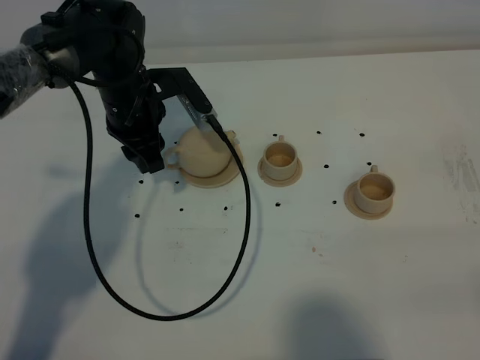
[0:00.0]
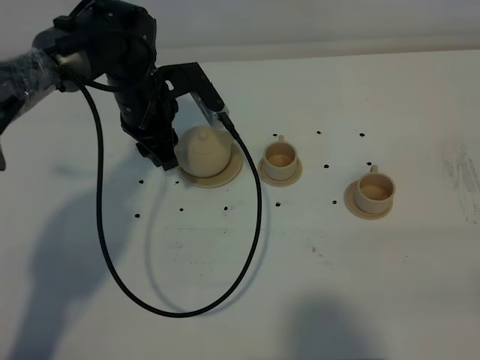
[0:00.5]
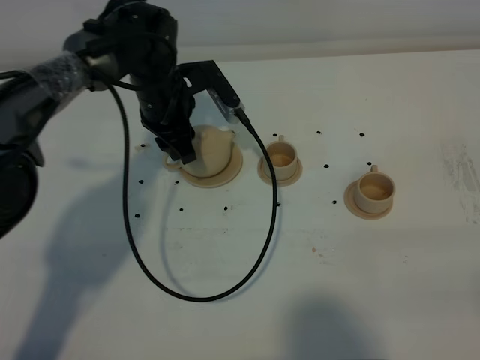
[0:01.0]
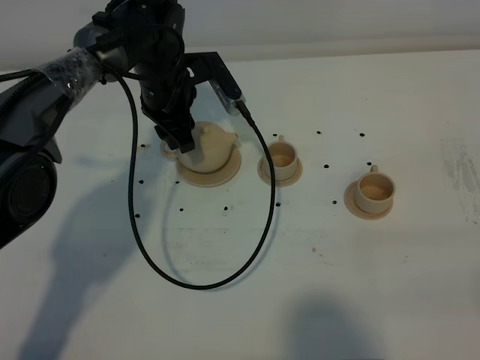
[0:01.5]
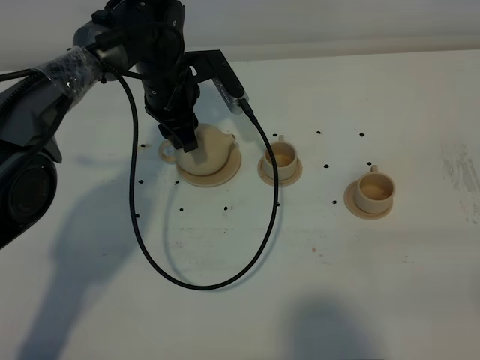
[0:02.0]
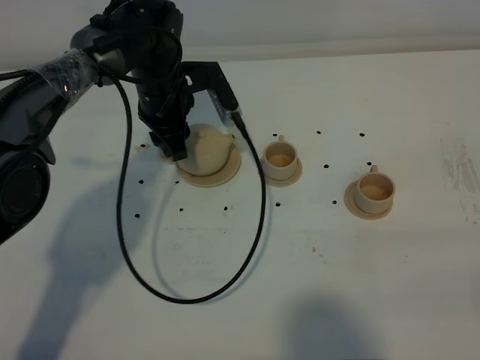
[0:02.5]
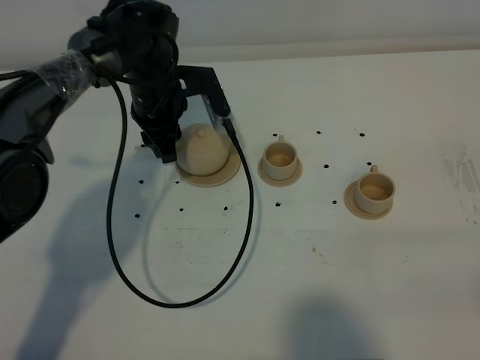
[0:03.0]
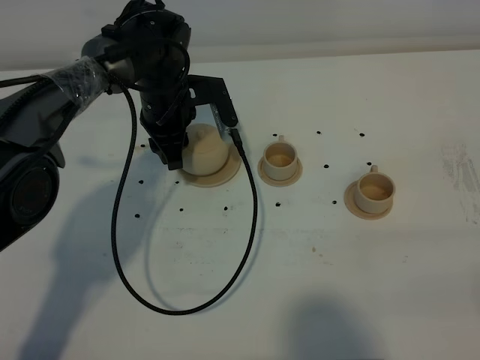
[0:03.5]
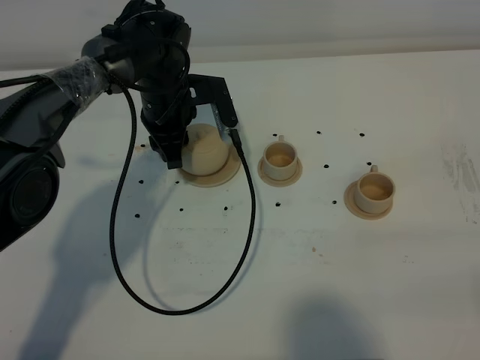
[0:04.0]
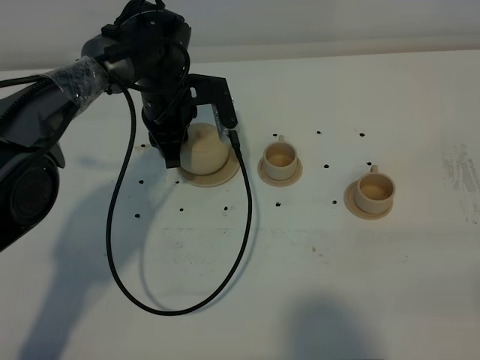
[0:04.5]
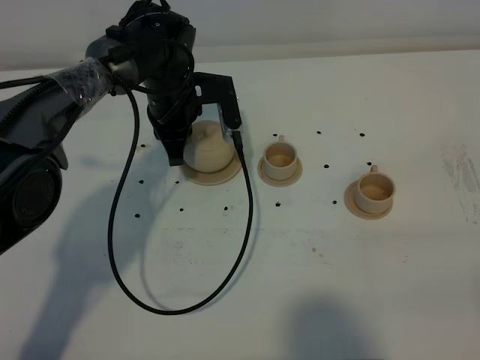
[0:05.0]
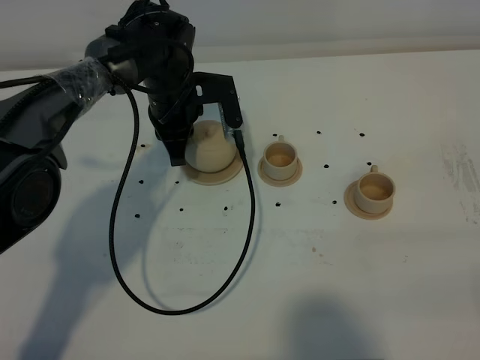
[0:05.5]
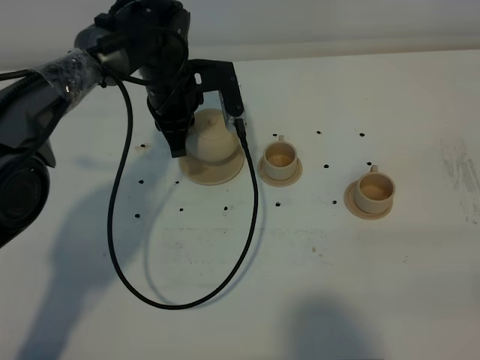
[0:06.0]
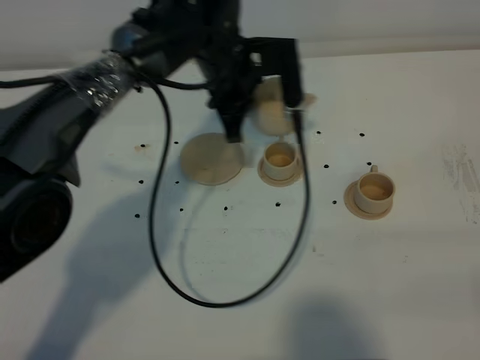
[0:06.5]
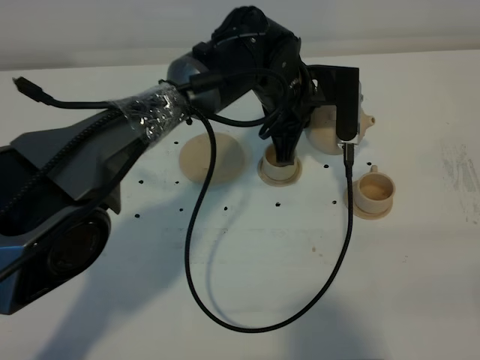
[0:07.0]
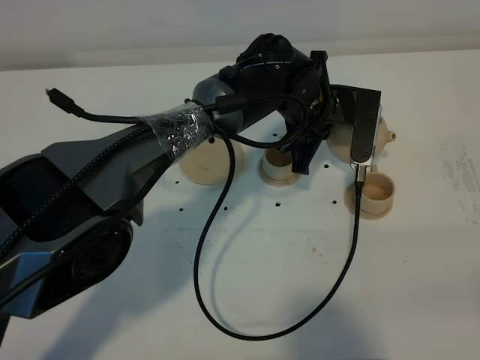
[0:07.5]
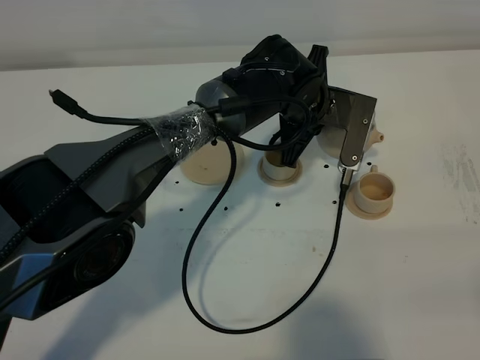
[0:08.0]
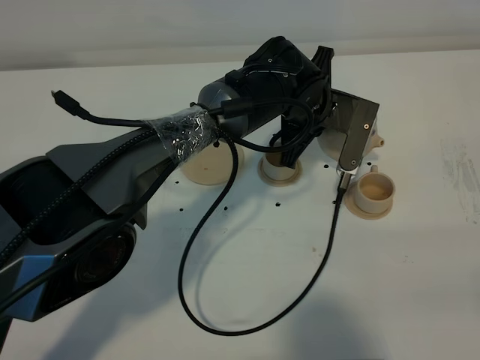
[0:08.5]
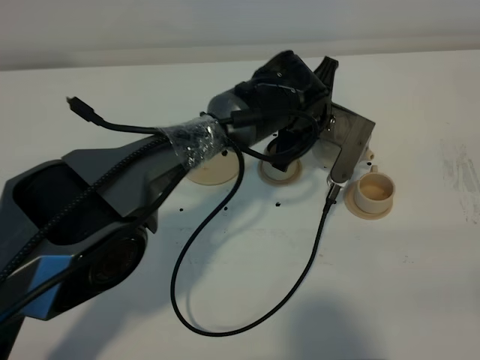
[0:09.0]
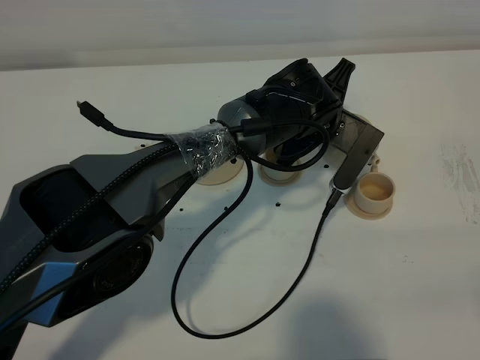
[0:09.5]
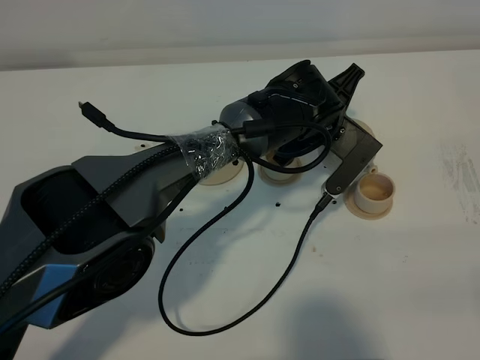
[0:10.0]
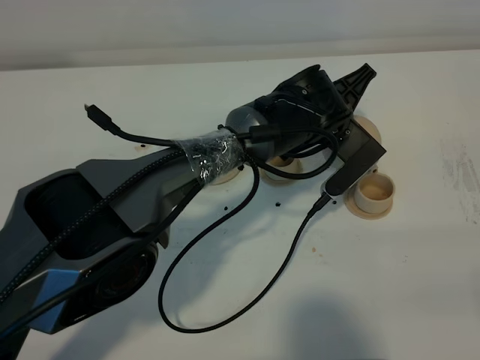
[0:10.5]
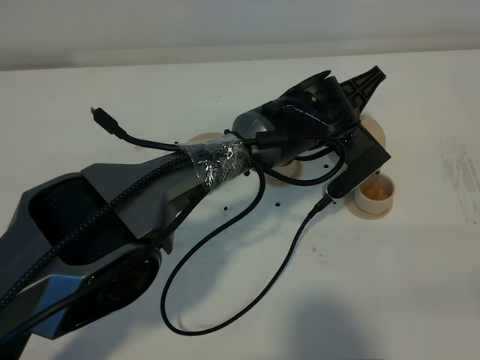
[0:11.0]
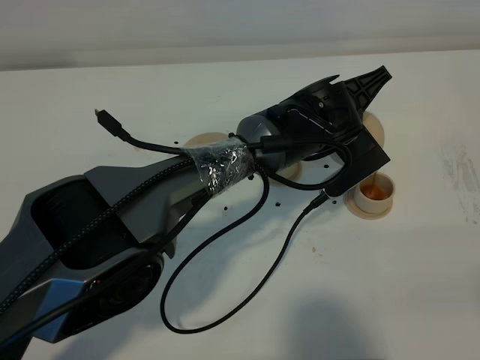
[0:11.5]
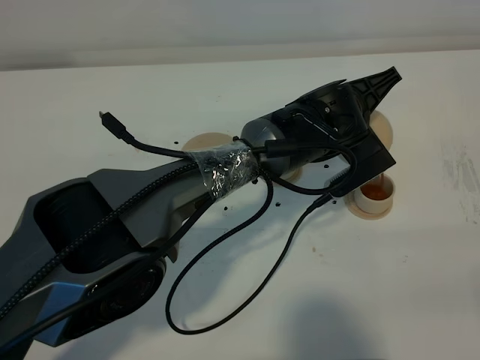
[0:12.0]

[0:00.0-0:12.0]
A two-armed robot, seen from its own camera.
Task of the whole recording: grasp the brown teapot and pour the tea into the two brown teacups one by one, put the brown teapot back in its original place.
Step, 0:00.0 to 0:05.5: Pick up the teapot with the left gripper.
0:00.0 to 0:02.0: The left gripper shifts by roughly 5 cm.
0:02.0 to 0:04.0: The grippers make only small movements.
0:04.0 to 0:06.0: The left gripper closes.
0:06.0 to 0:08.0: The left gripper shifts approximately 15 cm to the right.

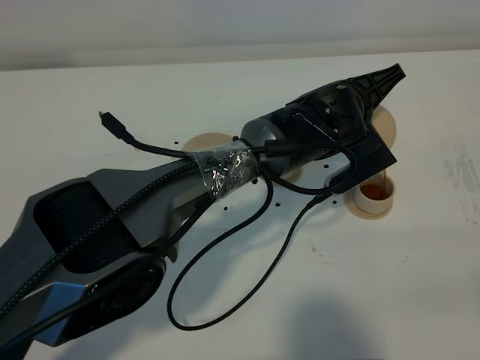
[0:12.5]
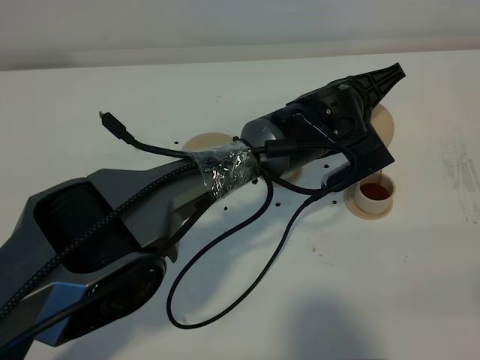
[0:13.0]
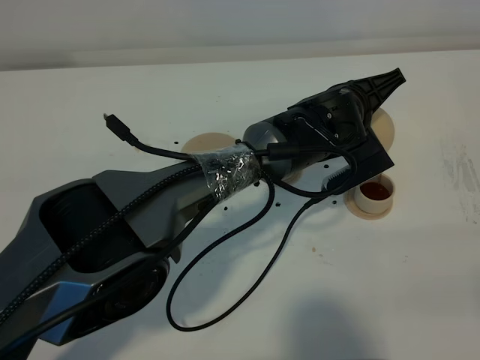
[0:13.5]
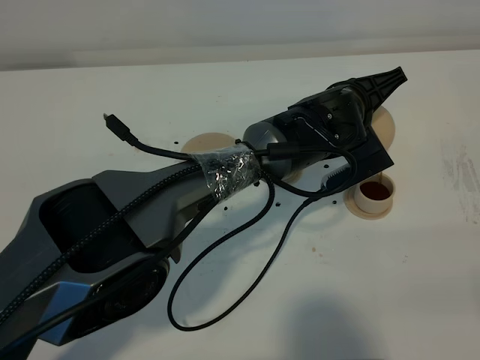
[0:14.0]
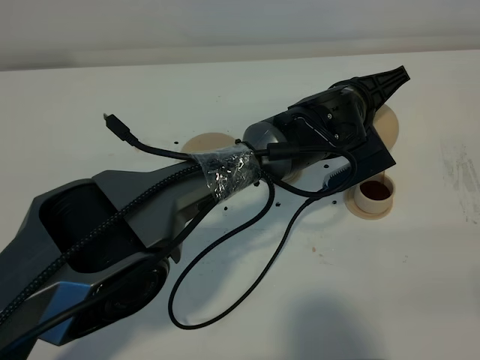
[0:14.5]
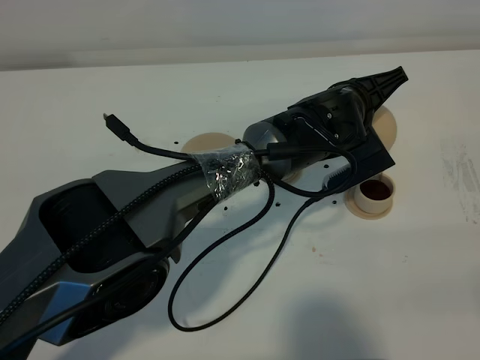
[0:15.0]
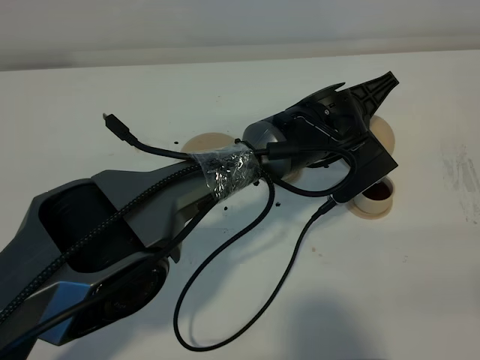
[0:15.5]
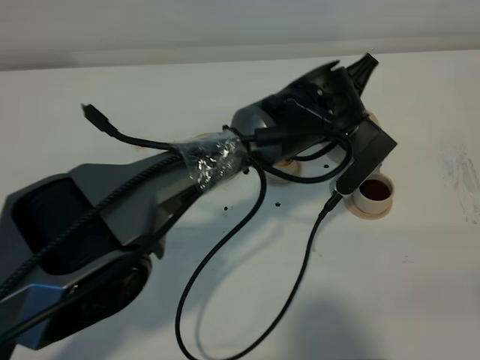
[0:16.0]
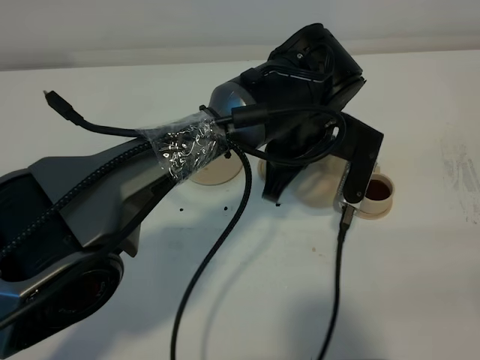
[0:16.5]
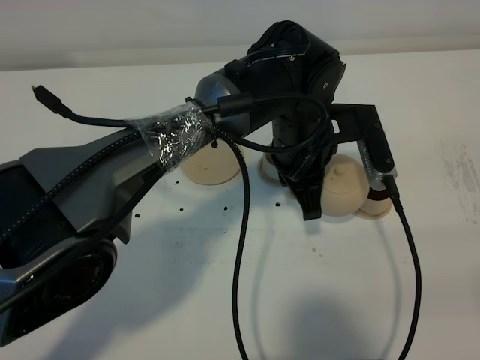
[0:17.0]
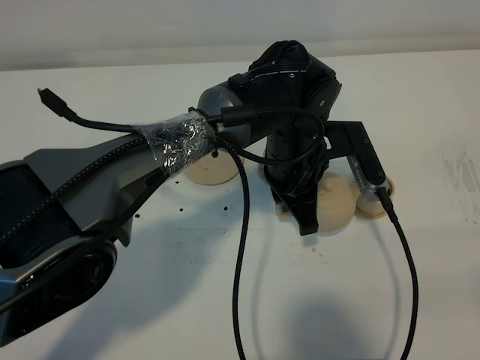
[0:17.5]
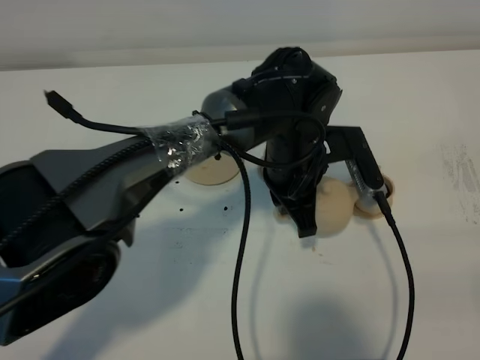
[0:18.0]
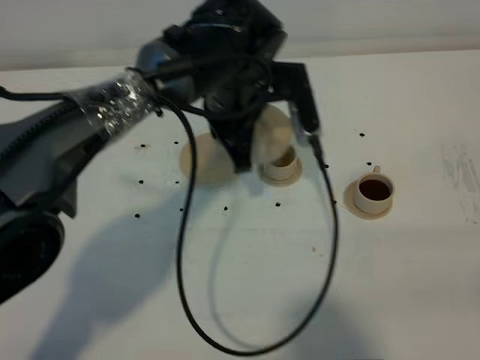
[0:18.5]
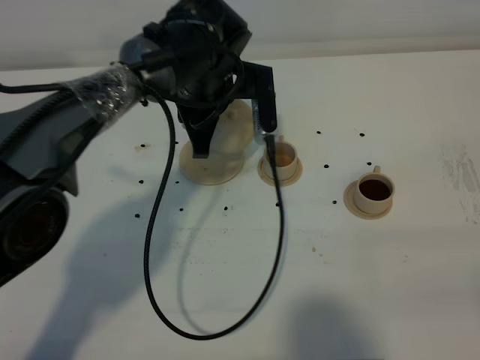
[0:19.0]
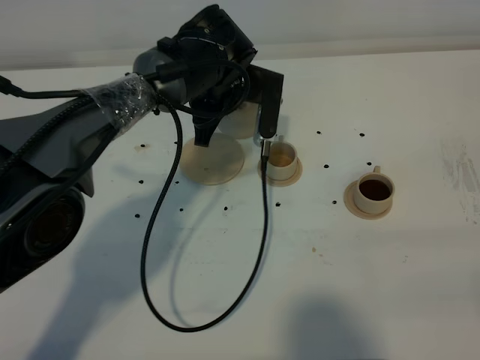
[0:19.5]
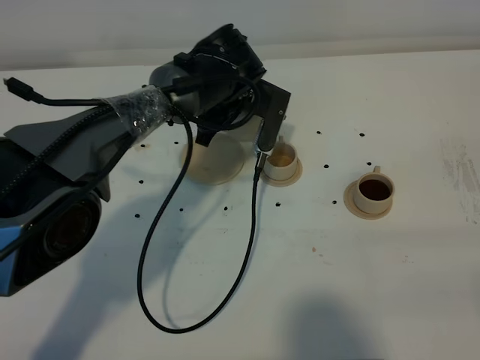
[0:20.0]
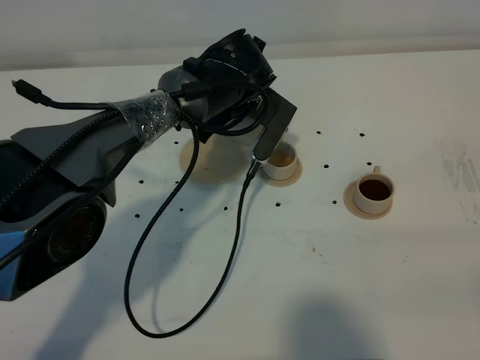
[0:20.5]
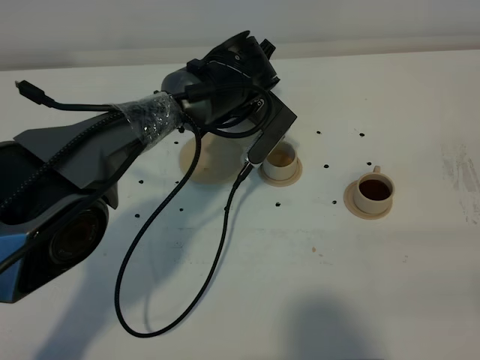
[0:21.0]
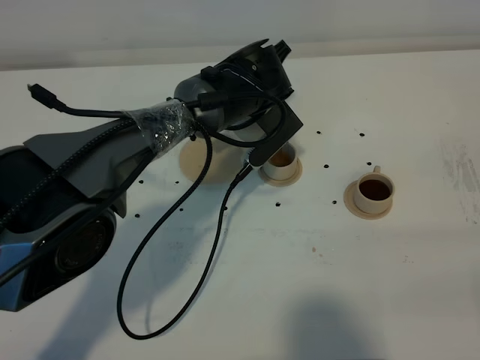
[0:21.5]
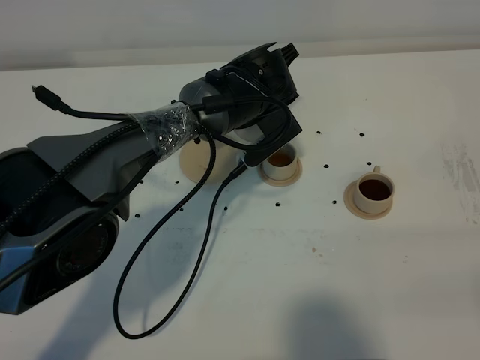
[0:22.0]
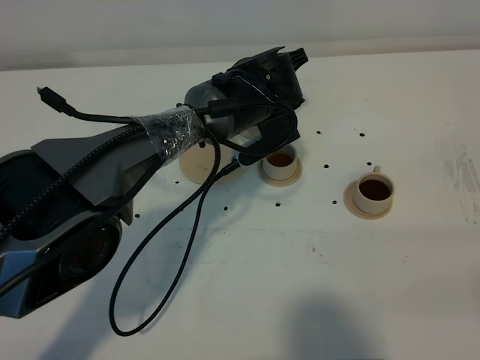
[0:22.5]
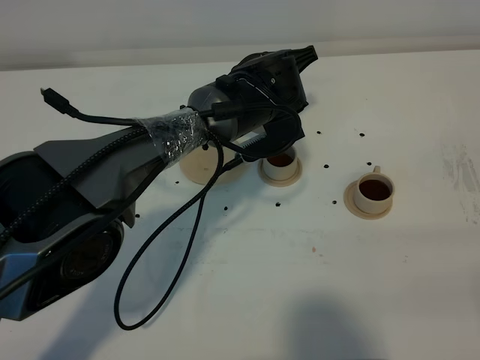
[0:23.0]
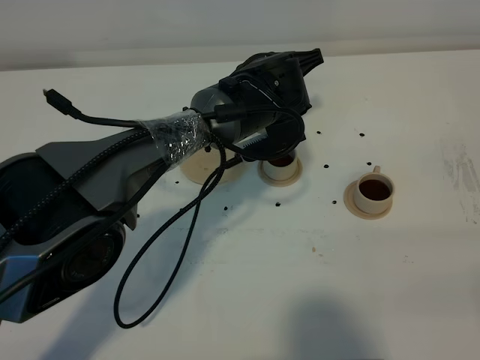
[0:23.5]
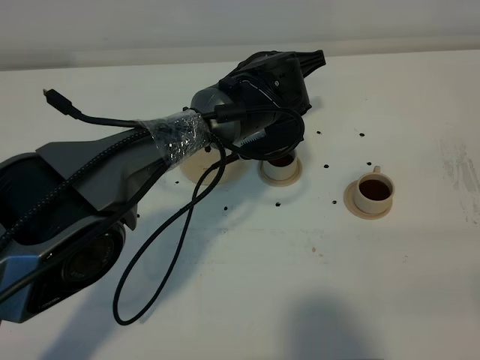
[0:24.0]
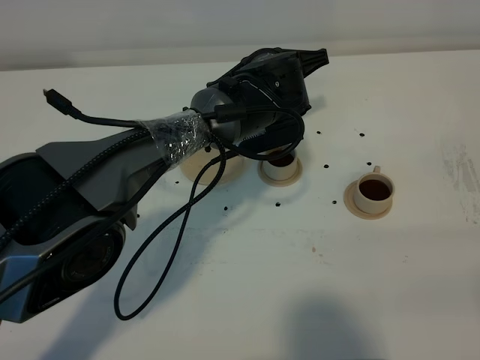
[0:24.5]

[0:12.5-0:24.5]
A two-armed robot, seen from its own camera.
Task of the whole recording: grasp the brown teapot and pour the tea into the two brown teacups one by one, put the brown teapot back in its original place.
0:12.5 to 0:14.5: Both grippers stay put.
0:14.5 to 0:16.5: The left gripper goes some 5 cm to the left.
0:16.5 to 0:18.5: The left gripper heads to the left, covering about 10 cm.
0:18.5 to 0:20.5: The left gripper moves forward and downward, roughly 10 cm.
0:22.5 to 0:24.5: The grippers move only a little.

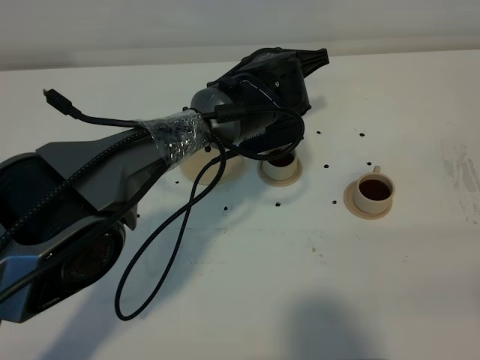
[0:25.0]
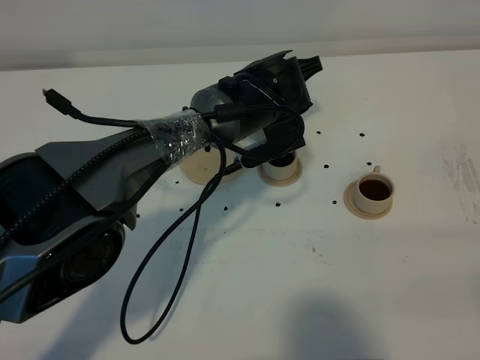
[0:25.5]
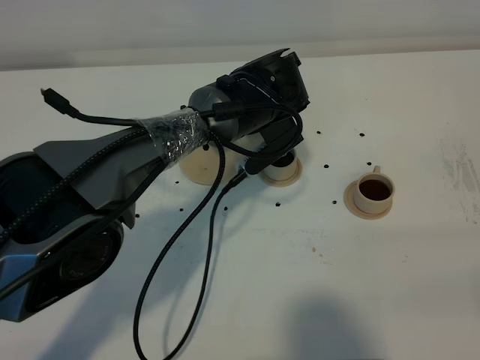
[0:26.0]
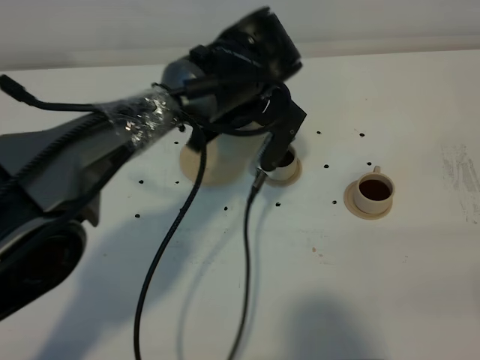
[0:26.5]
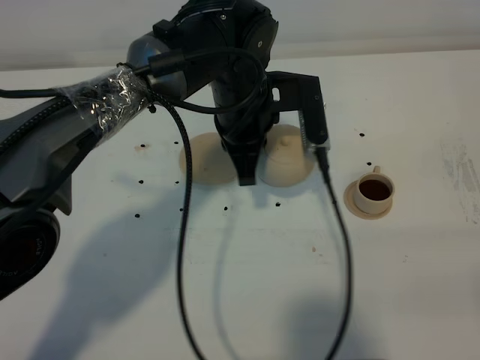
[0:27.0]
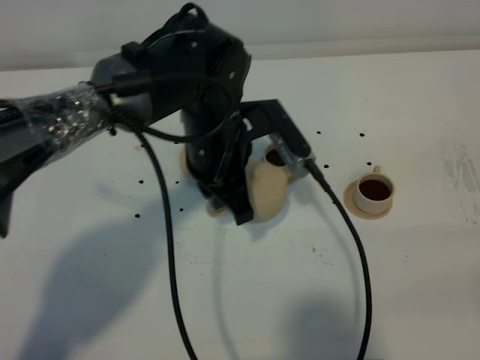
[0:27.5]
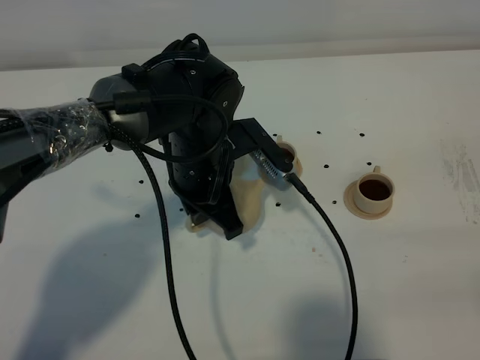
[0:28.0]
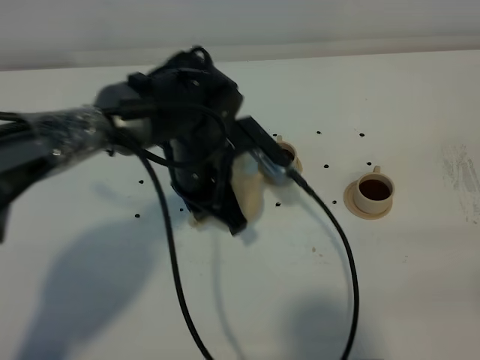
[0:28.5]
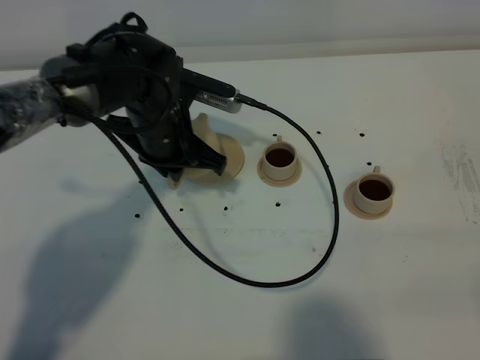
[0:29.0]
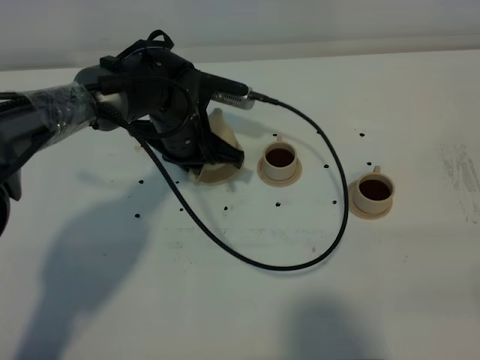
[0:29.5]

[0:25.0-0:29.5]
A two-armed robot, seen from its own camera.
Task of the whole recording: grasp the brown teapot and pour the tea into the two brown teacups one by one, put the brown teapot back in its original place.
0:25.0 to 0:27.0: The left gripper travels backward by some 5 cm.
0:27.0 to 0:29.5: The left gripper heads to the left and downward, covering some 10 cm.
